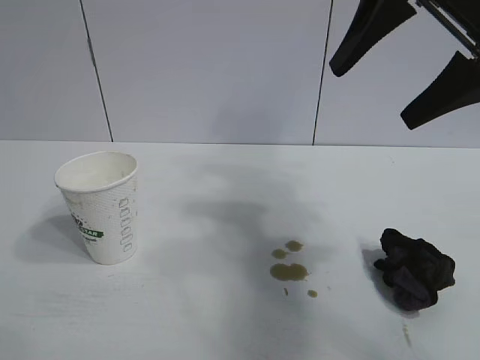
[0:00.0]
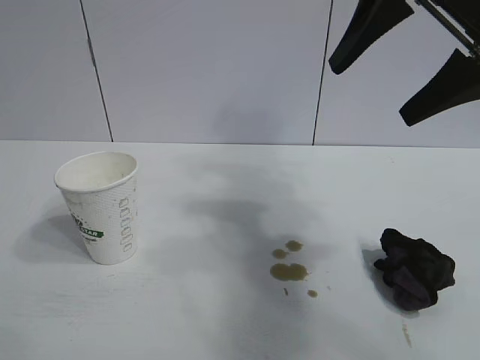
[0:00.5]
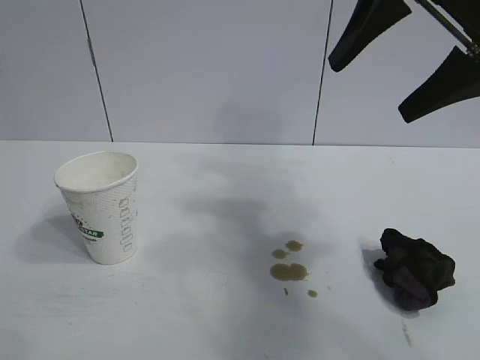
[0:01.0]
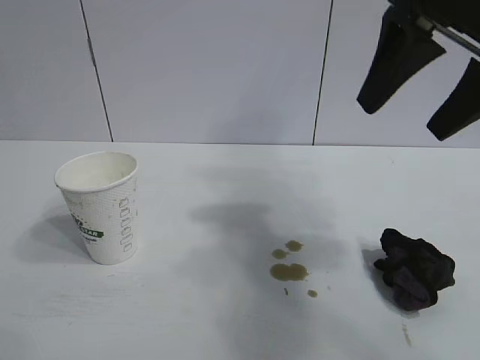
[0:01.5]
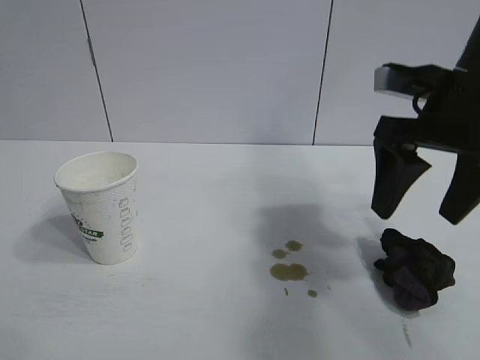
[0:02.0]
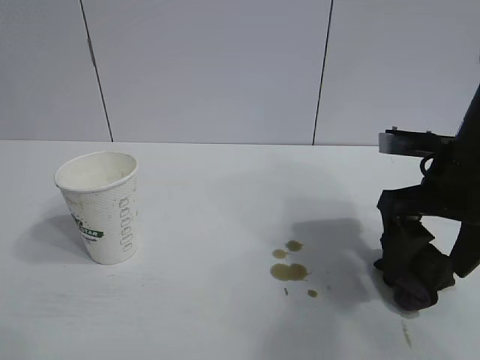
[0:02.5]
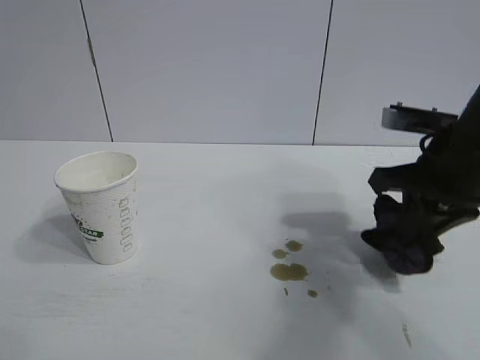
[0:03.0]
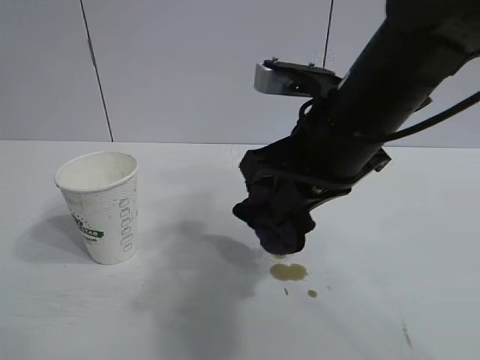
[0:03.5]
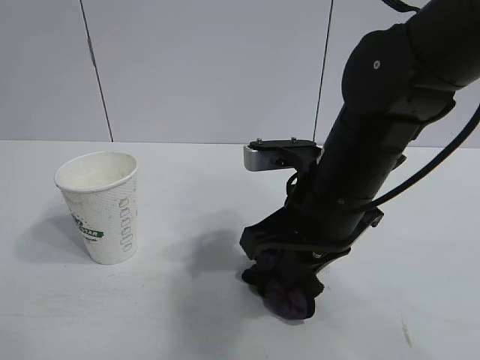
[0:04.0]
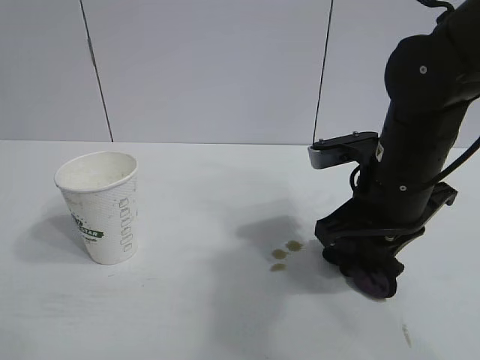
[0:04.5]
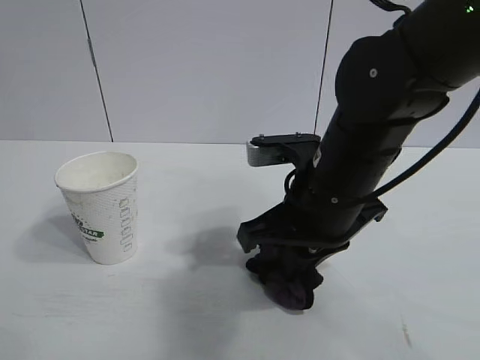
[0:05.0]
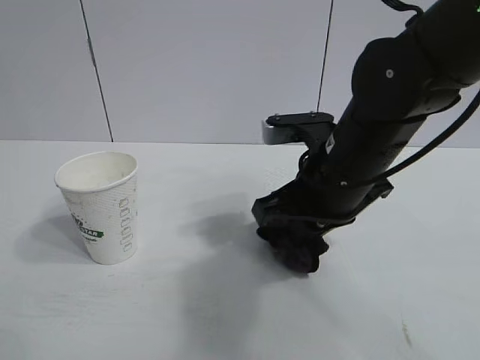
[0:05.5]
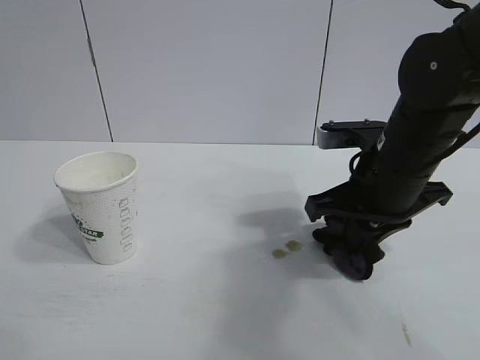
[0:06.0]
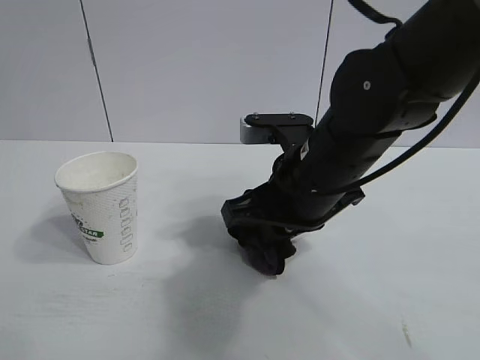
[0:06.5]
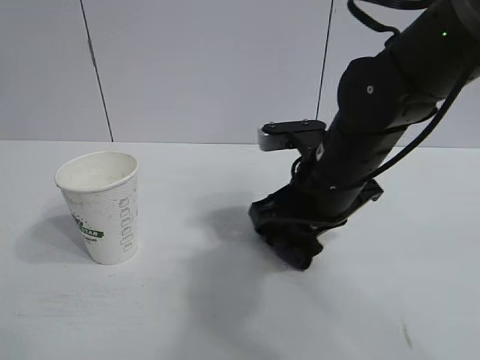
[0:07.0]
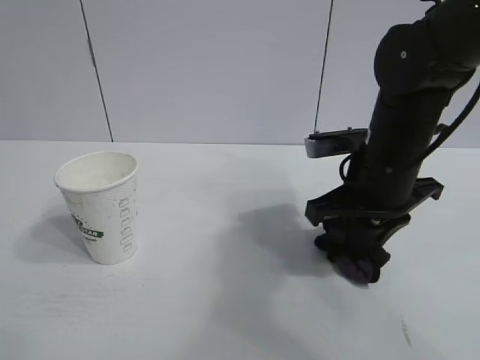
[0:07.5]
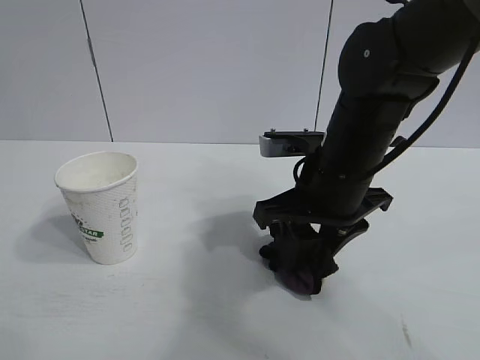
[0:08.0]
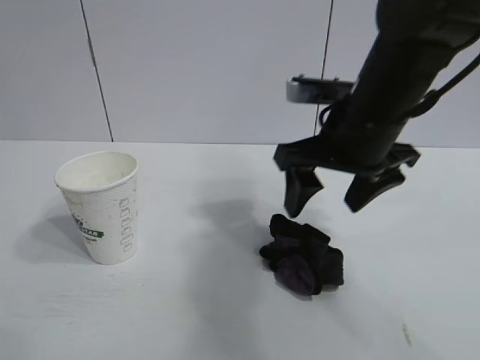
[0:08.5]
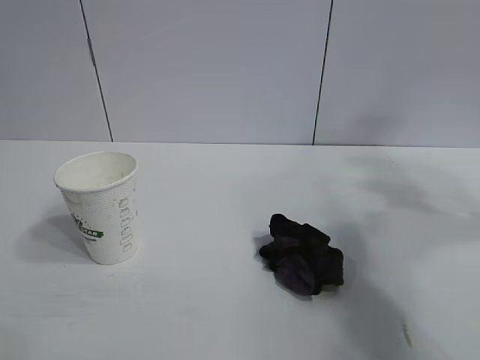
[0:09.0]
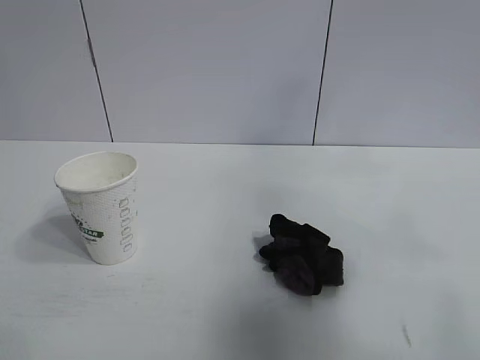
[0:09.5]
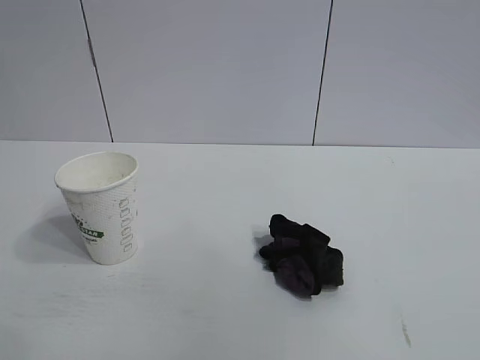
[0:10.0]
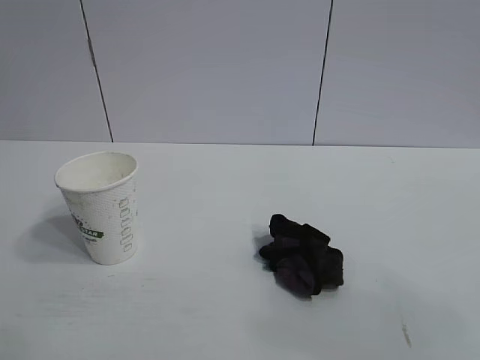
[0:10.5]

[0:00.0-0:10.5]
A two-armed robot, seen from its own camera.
Task of the whole recording: the left gripper pick up the fallen cup and place it upright, the right gripper grasp the black rag and wipe the stain on the table, the right gripper put the black rag back in its original position.
Step, 0:00.0 to 0:02.5: Grasp the rag with right gripper.
Step, 0:03.0 to 0:07.5: Wipe the stains off the table with the rag with right gripper.
